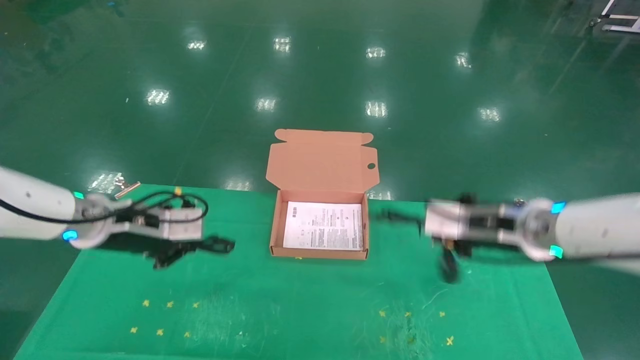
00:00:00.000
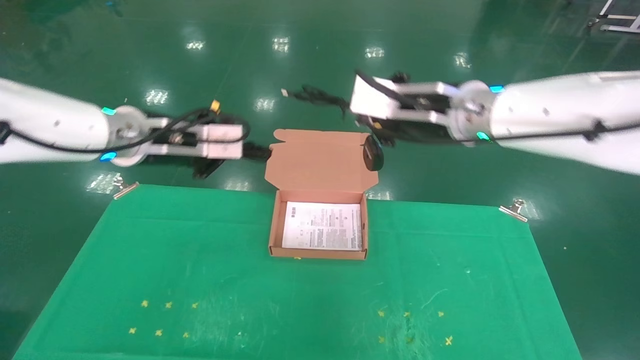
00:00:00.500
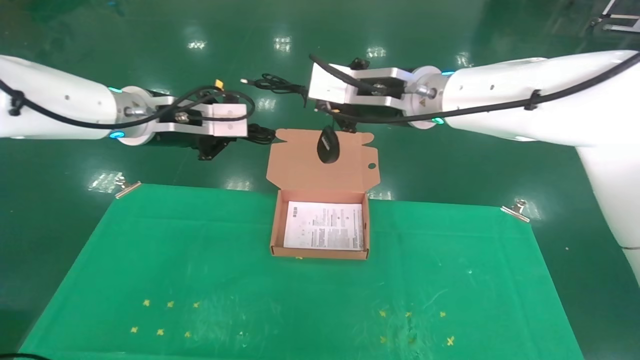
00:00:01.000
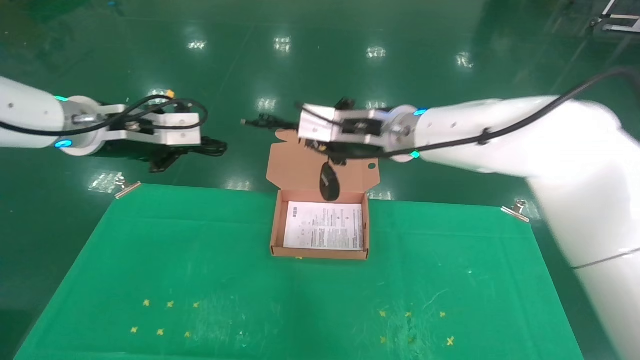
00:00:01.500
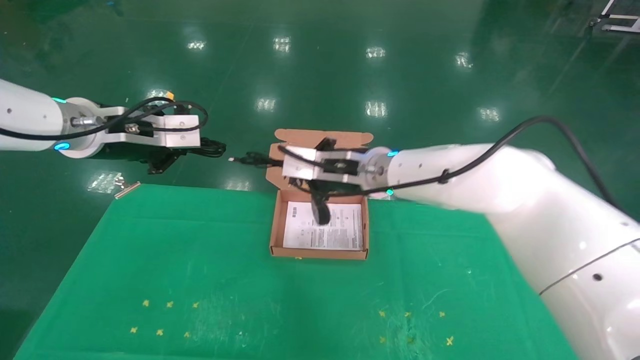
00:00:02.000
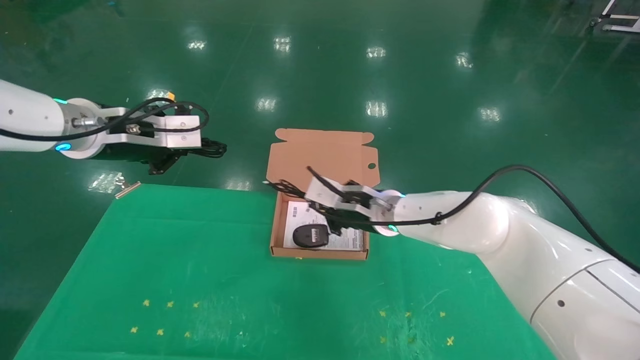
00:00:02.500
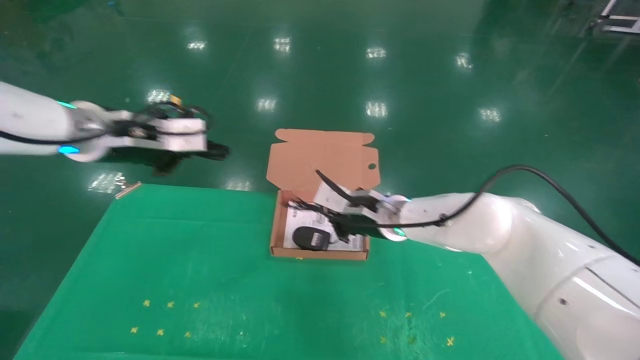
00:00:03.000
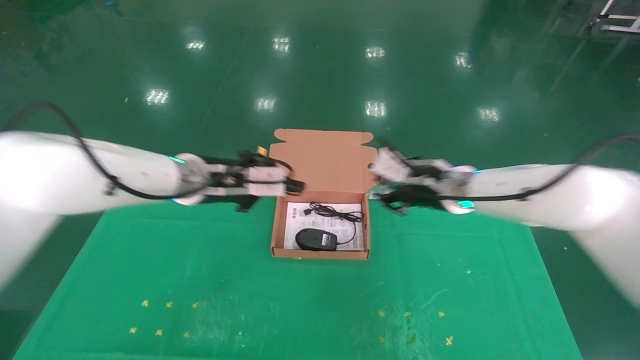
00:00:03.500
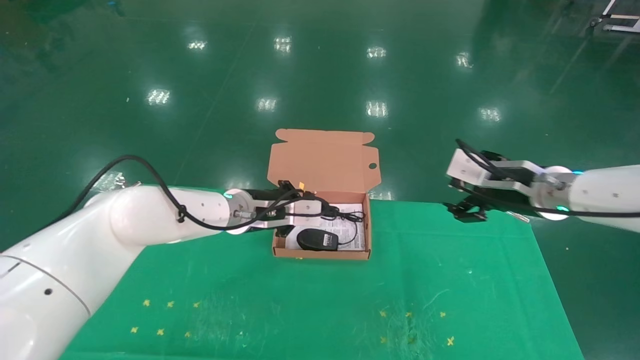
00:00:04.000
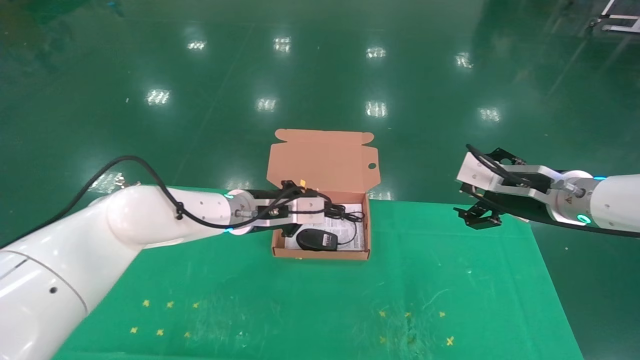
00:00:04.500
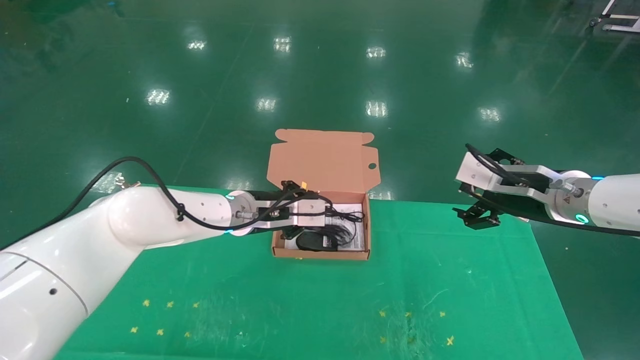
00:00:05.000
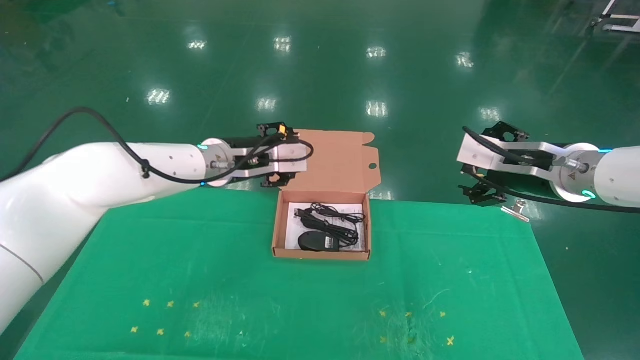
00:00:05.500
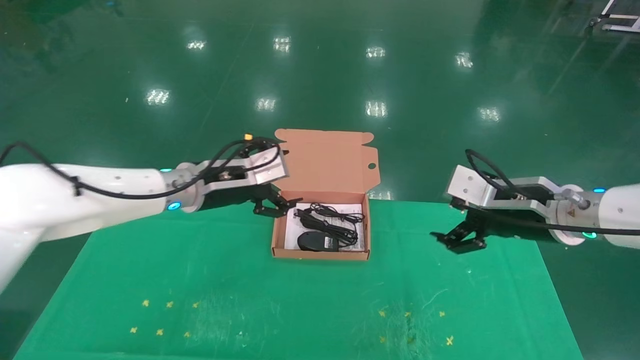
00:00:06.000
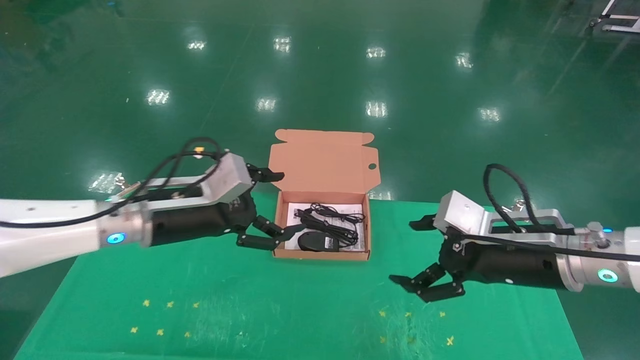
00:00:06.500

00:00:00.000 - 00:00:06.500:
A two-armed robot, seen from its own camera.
Task of the whole recording: grasp data cable left put into box grasp mouse right put into box.
Step, 00:00:00.500 - 00:00:05.500: Place the mouse and power cord into the box.
00:00:00.000 - 00:00:02.000: The right gripper shifts roughly 20 cm to the left and forward, while the left gripper travels upward by some 10 cm.
00:00:02.000 - 00:00:04.500: The right gripper travels to the right by roughly 25 cm, and opens up. Meanwhile the left gripper shifts approximately 25 cm to the right, downward and forward.
00:00:04.500 - 00:00:06.500: The left gripper shifts about 15 cm to the left and backward, and opens. Meanwhile the right gripper travels backward by approximately 5 cm.

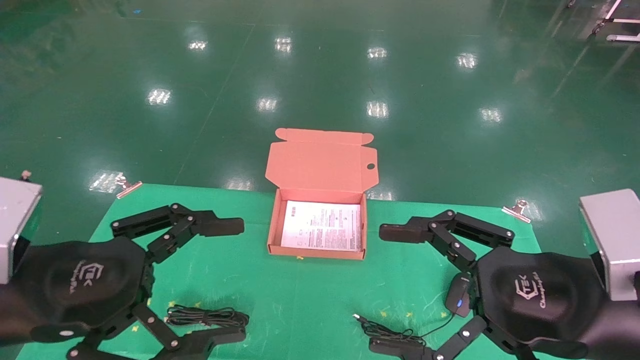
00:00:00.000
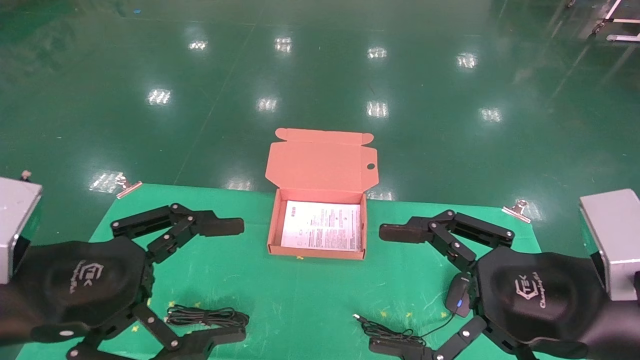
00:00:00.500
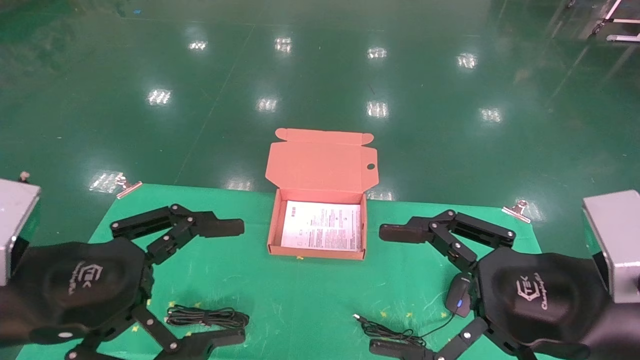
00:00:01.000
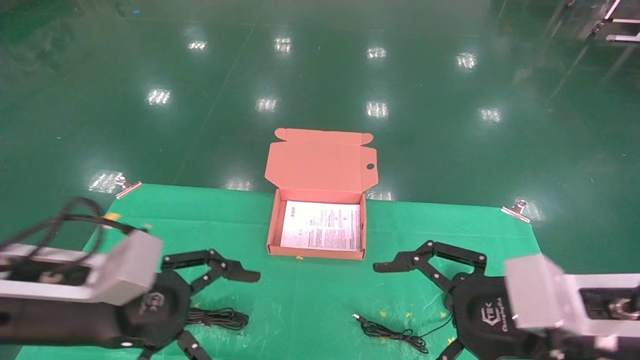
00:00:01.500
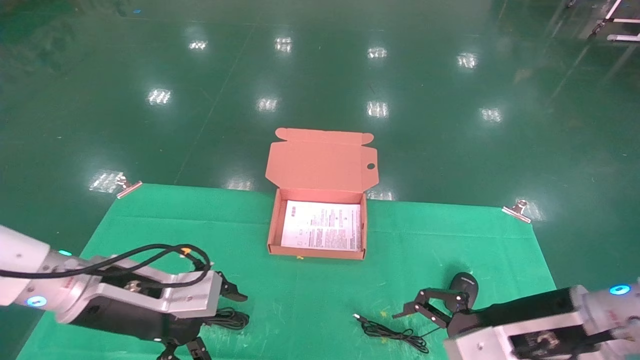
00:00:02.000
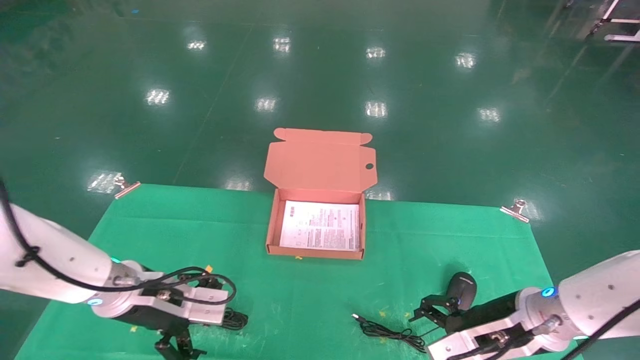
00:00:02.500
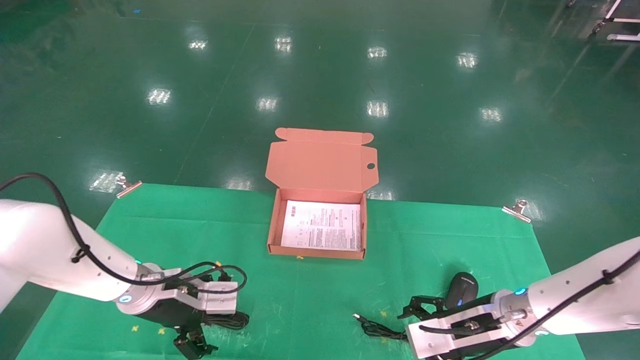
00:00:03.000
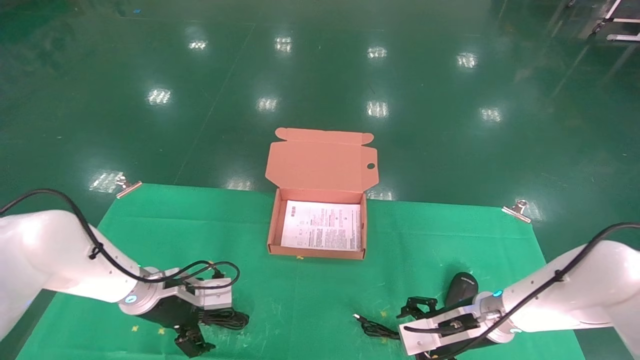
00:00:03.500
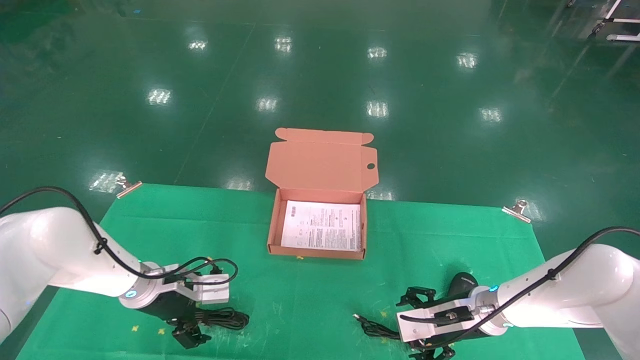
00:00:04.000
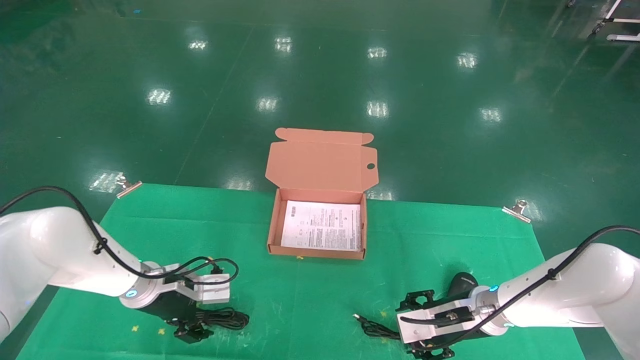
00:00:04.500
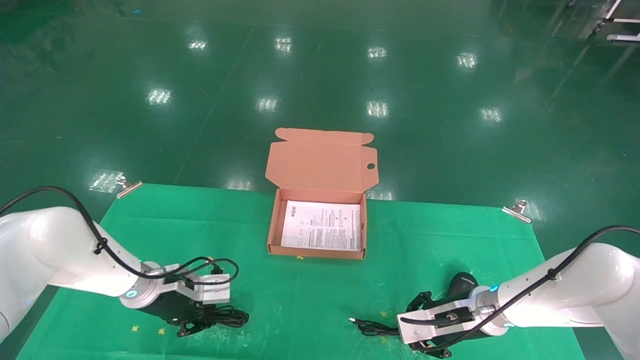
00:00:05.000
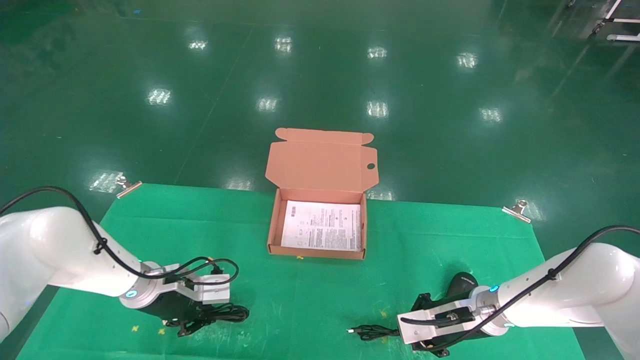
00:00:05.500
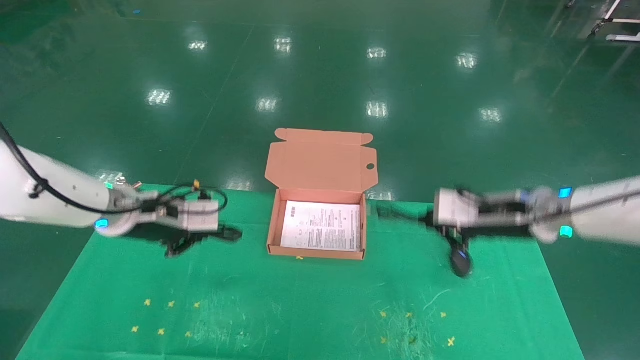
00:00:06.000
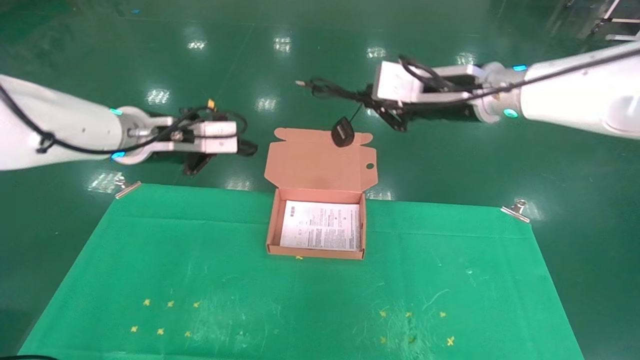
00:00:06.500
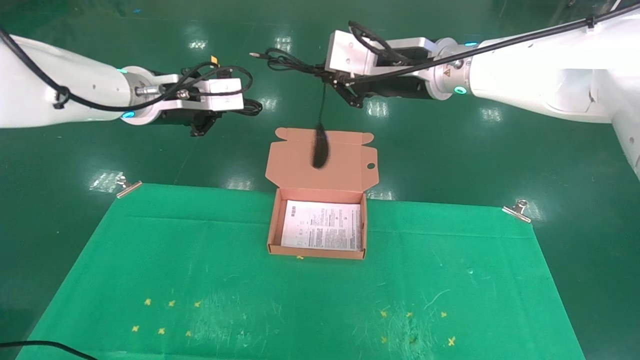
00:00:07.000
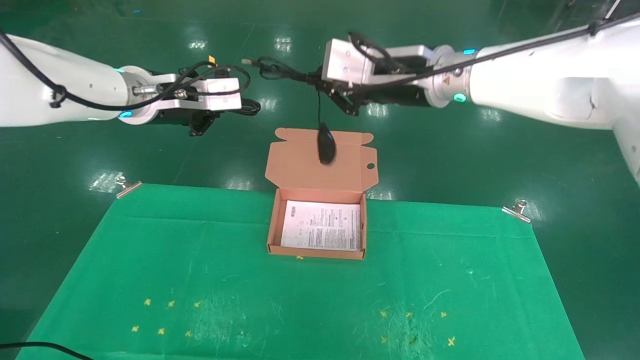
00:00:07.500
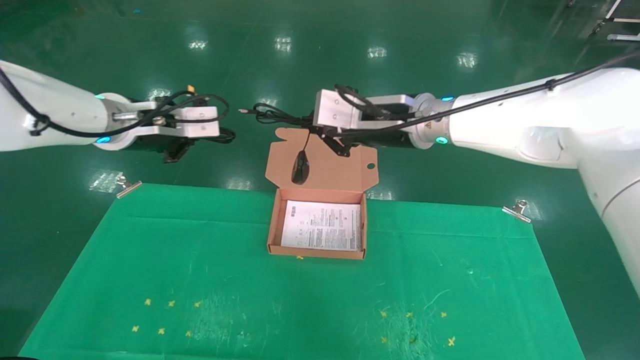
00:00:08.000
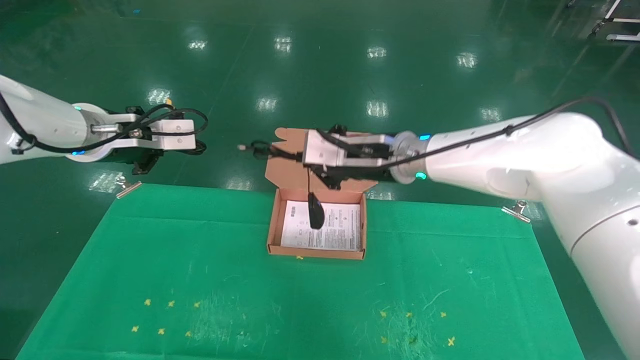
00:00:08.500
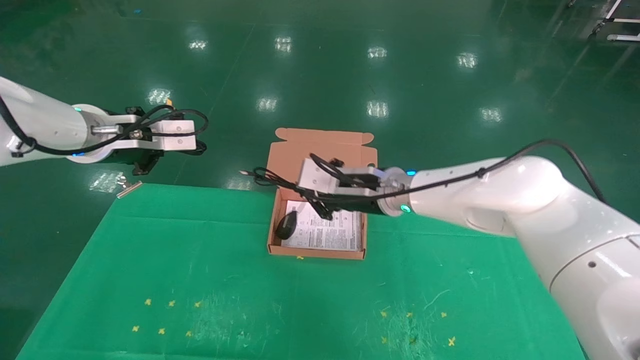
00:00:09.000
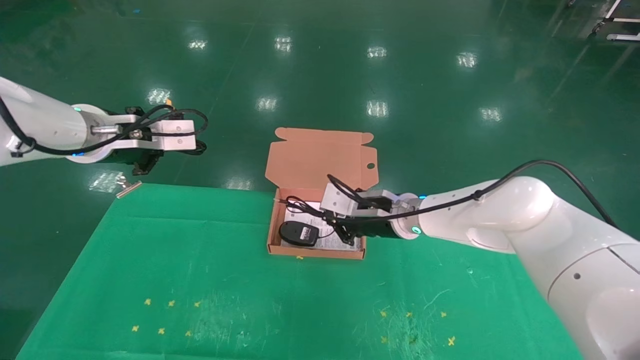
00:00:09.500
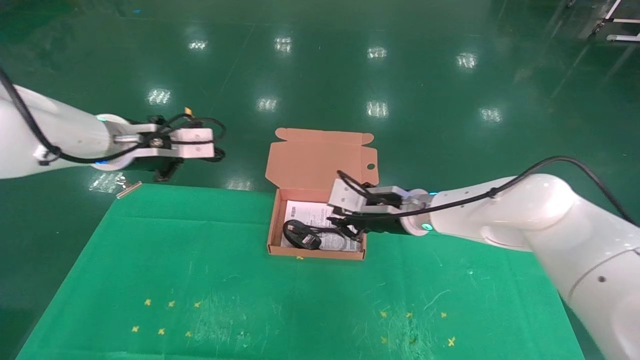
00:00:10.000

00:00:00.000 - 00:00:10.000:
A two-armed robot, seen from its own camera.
Task of the whole recording: grasp data cable left put into box grasp mouse right put into box.
Step, 00:00:01.500 - 00:00:05.000: Grab and pick up both the mouse and power cord from the accessory packaging area at the same time.
00:00:00.000 - 00:00:02.000: Both grippers move forward and downward, about 10 cm.
00:00:02.000 - 00:00:04.000: The grippers both shift forward and downward by approximately 15 cm.
00:00:04.000 - 00:00:06.000: Both grippers move upward, some 15 cm. The right gripper closes up. The left gripper closes.
00:00:06.000 - 00:00:08.000: The right gripper heads to the left and upward, covering about 20 cm. The left gripper shifts some 10 cm upward.
00:00:08.000 - 00:00:10.000: The right gripper travels downward by roughly 15 cm.

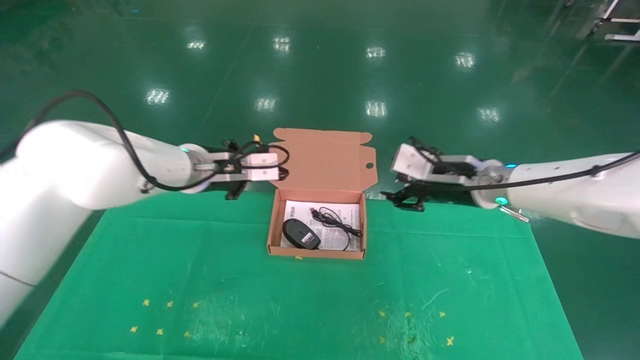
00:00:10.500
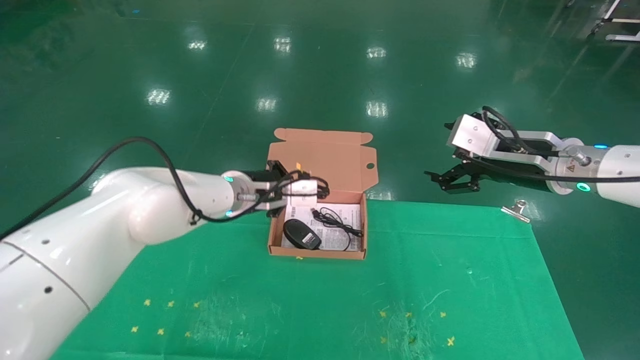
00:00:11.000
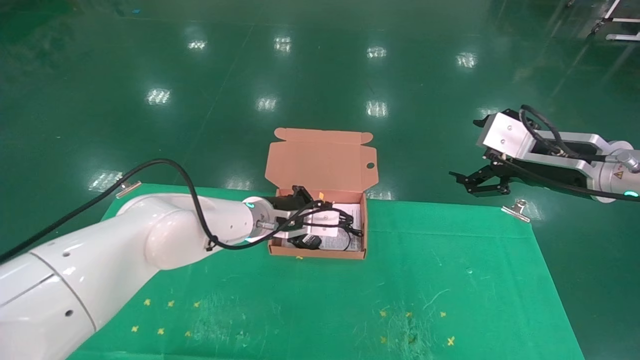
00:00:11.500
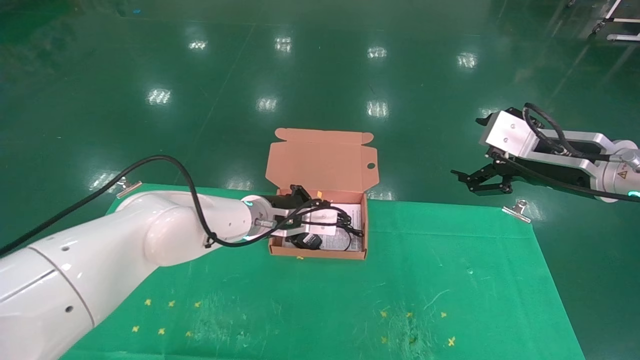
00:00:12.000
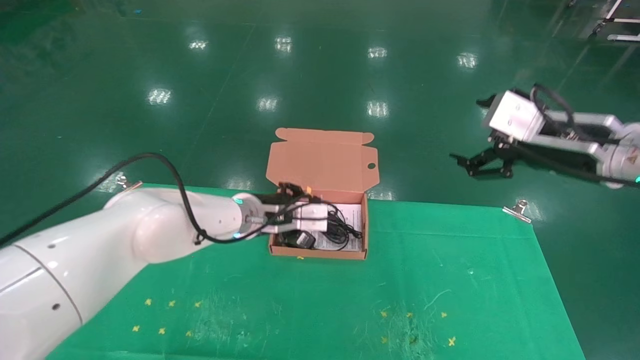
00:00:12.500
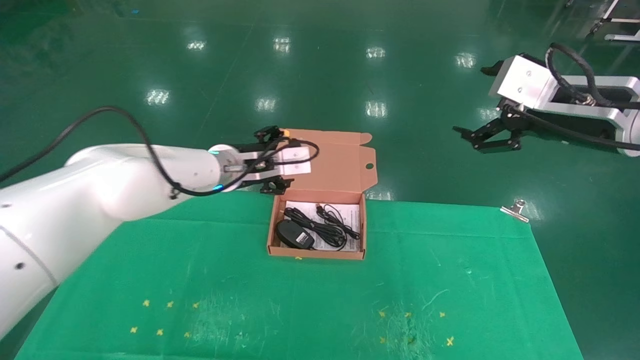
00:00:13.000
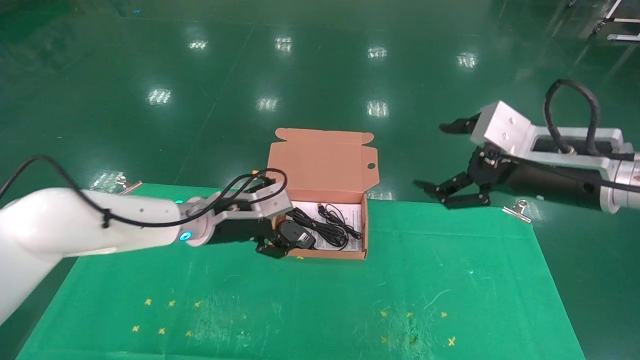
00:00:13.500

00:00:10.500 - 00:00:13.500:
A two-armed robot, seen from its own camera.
Task of the whole recording: grasp data cable left put into box grasp mouse right put into box.
00:00:10.500 - 00:00:12.000: The right gripper goes about 15 cm backward and to the right, and opens, while the left gripper moves downward and to the right, approximately 15 cm.
00:00:12.000 - 00:00:13.500: The left gripper heads to the left, covering some 10 cm, and opens; the right gripper shifts by roughly 5 cm.
